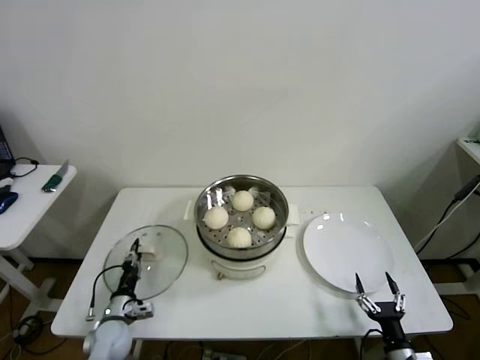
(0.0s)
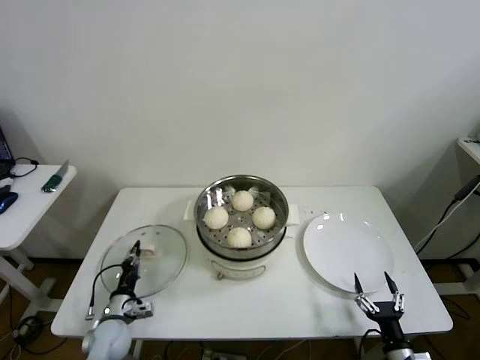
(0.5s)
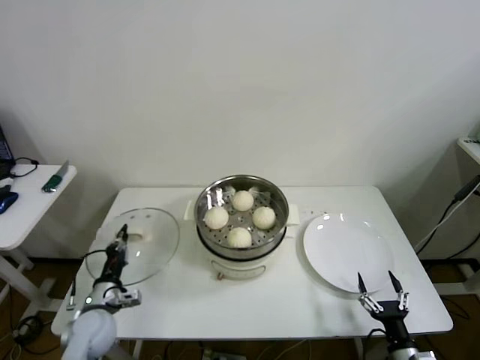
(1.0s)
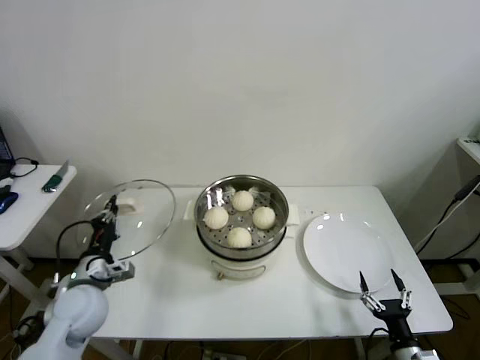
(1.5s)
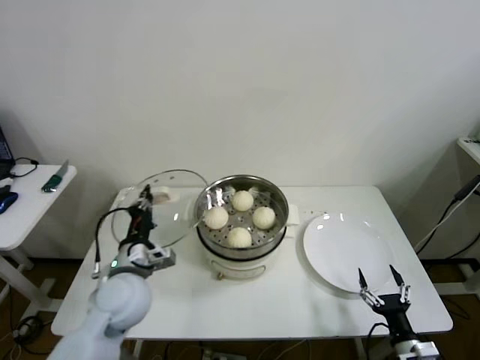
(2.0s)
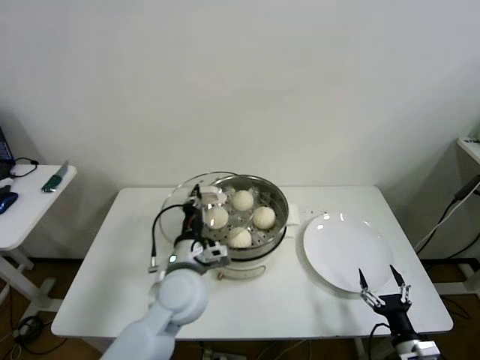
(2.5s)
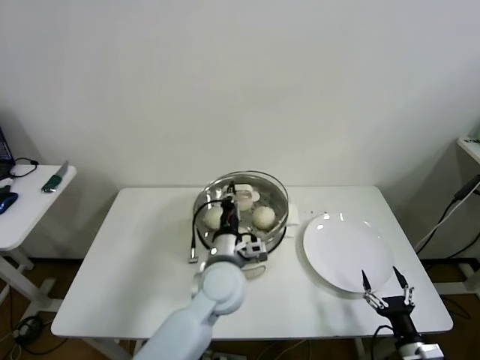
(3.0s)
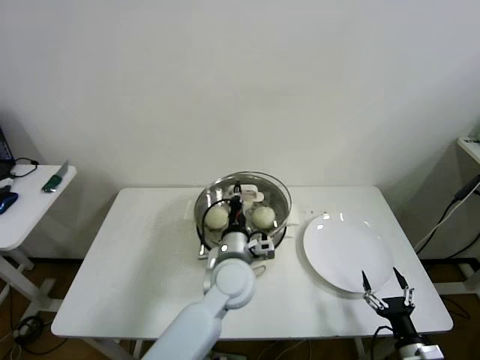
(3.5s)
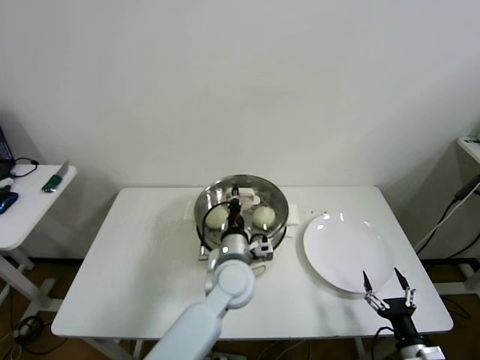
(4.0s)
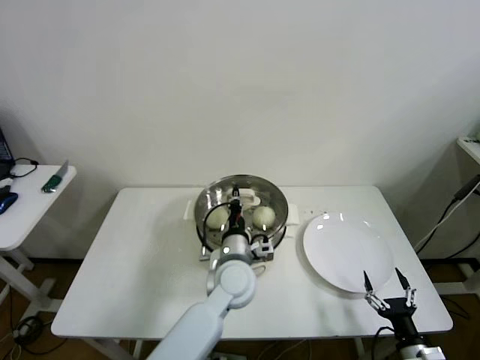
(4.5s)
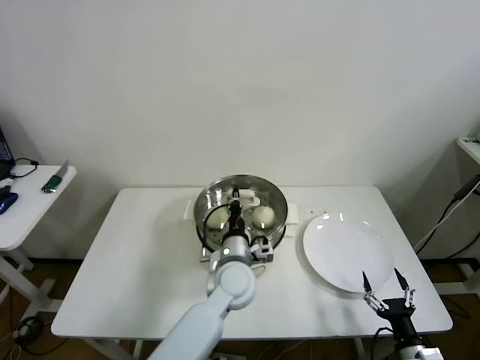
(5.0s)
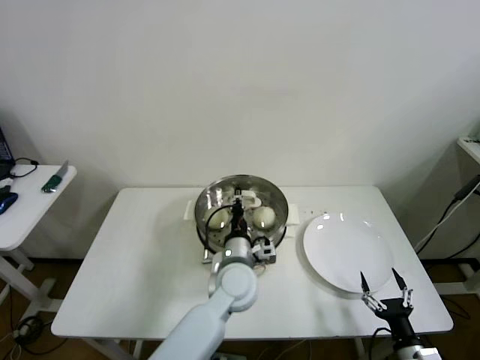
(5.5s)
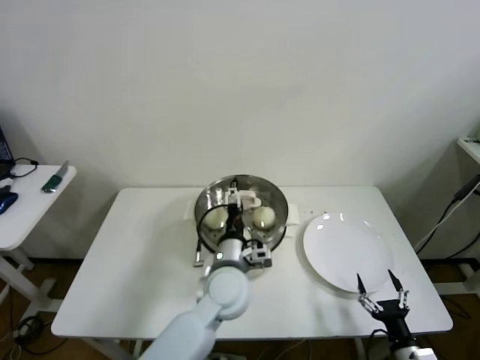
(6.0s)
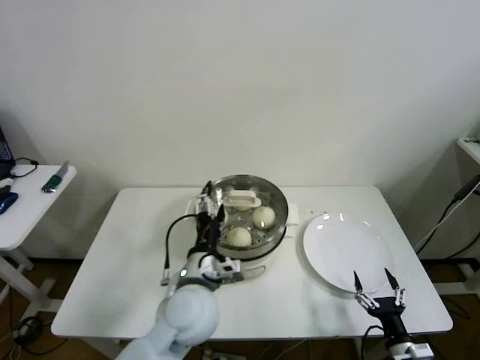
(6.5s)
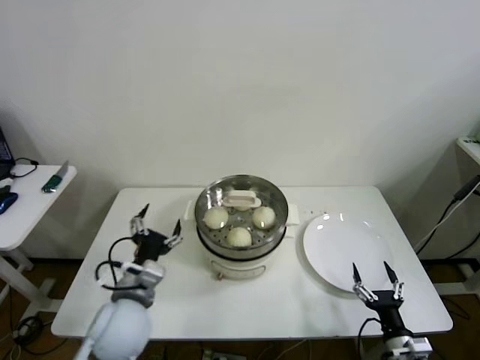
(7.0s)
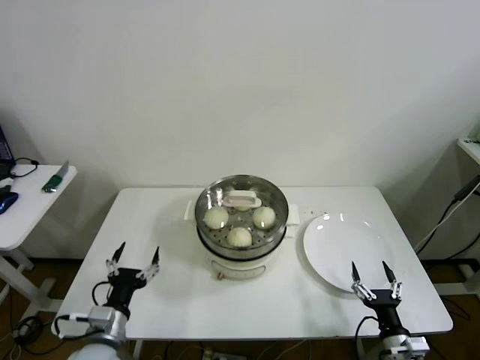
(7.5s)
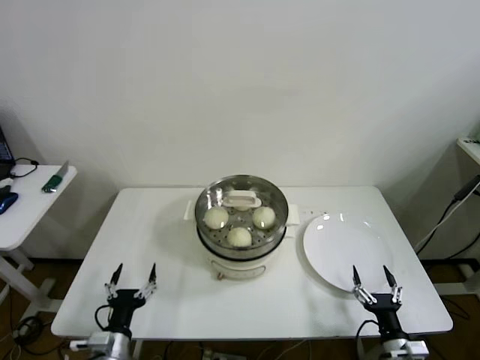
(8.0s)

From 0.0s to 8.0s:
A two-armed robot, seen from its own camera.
Step, from 0.5s to 5.0s: Place the pot lid on the steamer with left gripper.
From 0.0s to 2.0s: The left gripper heads upward and to the right, covering some 25 cm, and closes its fingers.
From 2.0s to 4.0s: The left gripper goes approximately 20 cm to the right.
From 4.0s to 6.0s: The left gripper opens up.
From 6.0s to 8.0s: The left gripper moves to the left, backward and downward, roughly 35 cm.

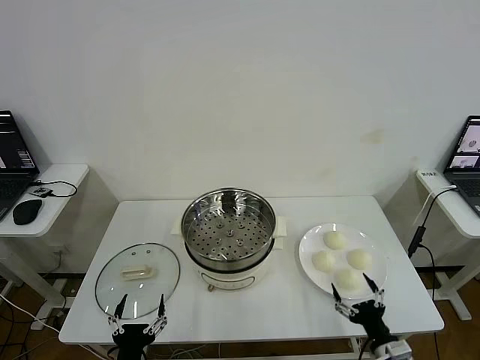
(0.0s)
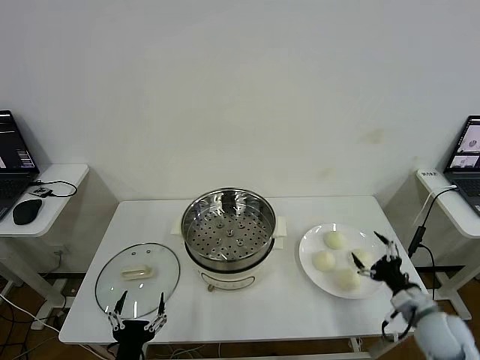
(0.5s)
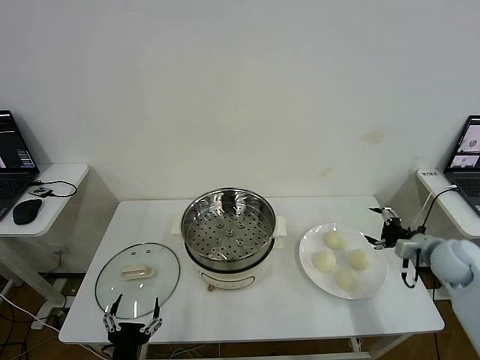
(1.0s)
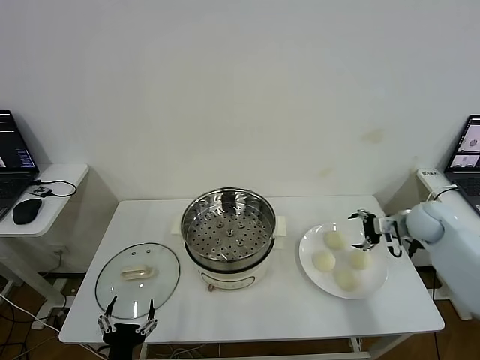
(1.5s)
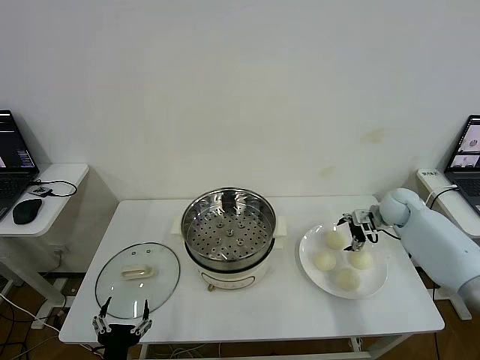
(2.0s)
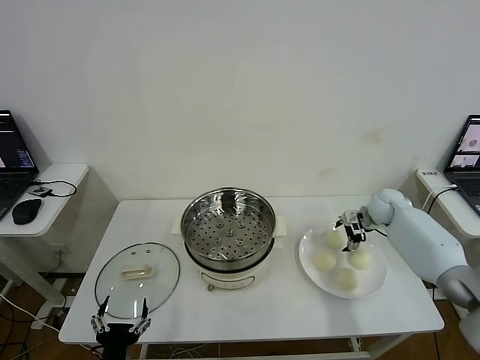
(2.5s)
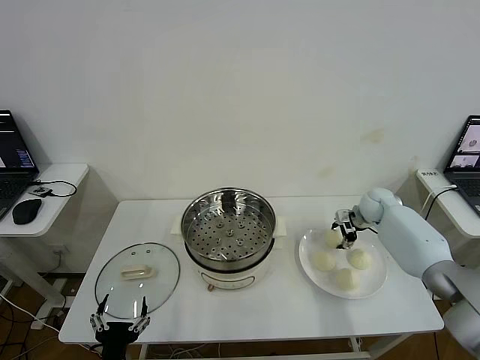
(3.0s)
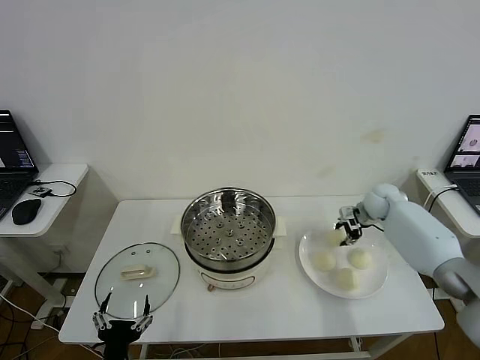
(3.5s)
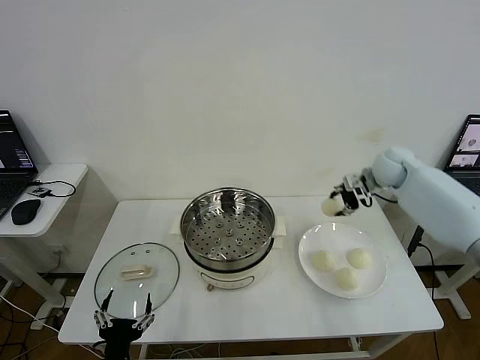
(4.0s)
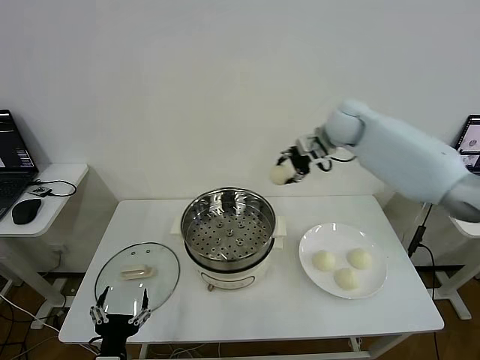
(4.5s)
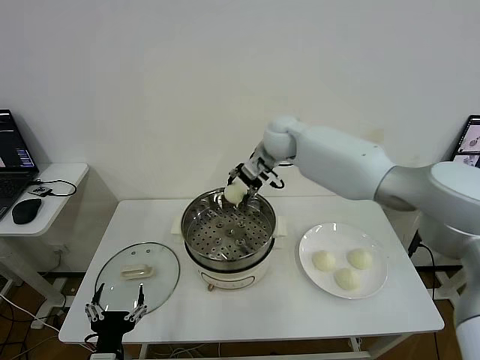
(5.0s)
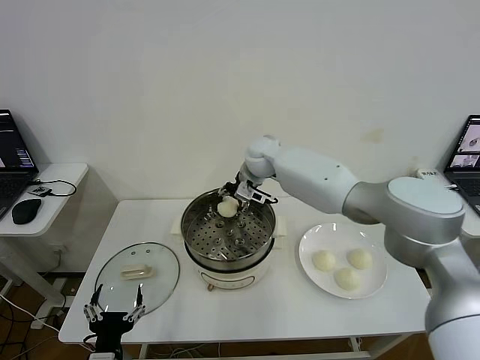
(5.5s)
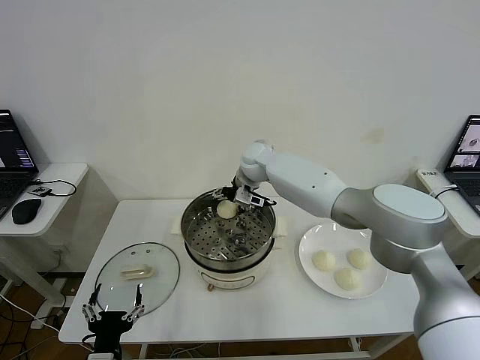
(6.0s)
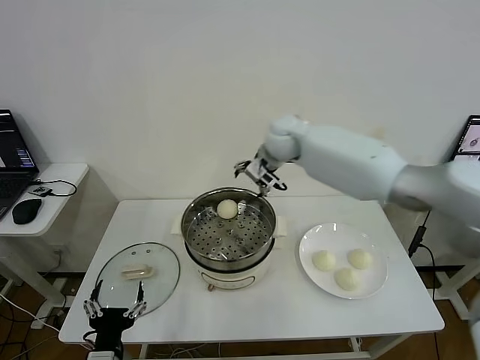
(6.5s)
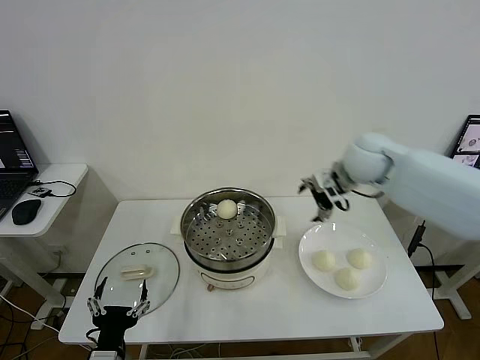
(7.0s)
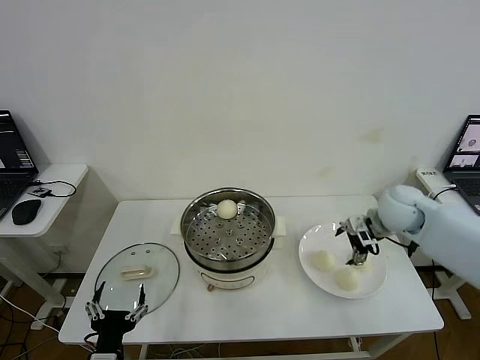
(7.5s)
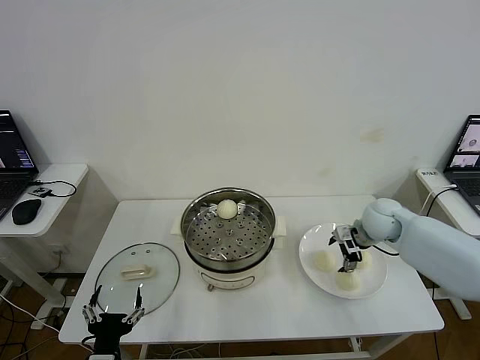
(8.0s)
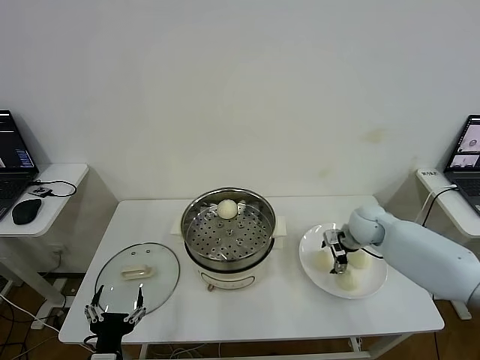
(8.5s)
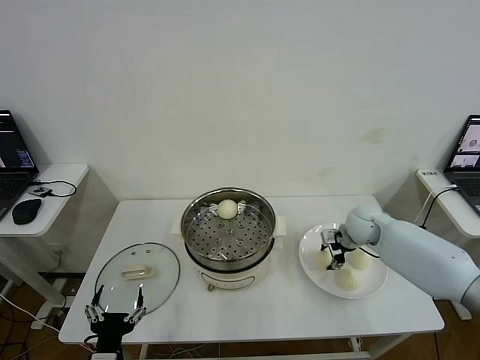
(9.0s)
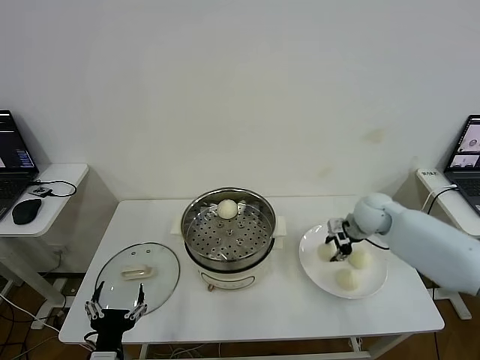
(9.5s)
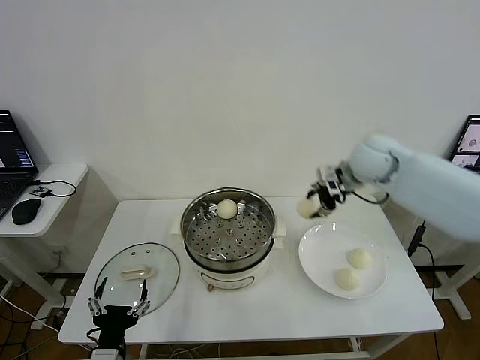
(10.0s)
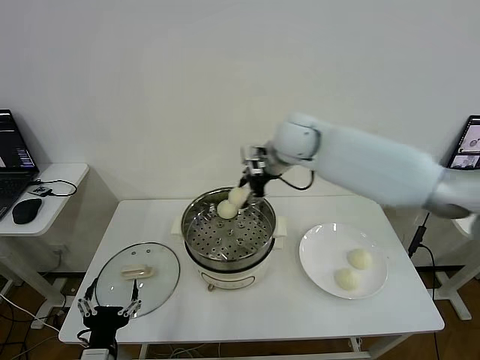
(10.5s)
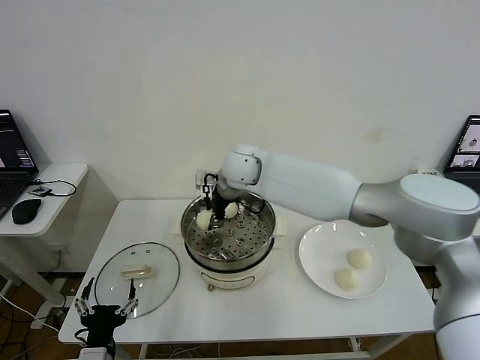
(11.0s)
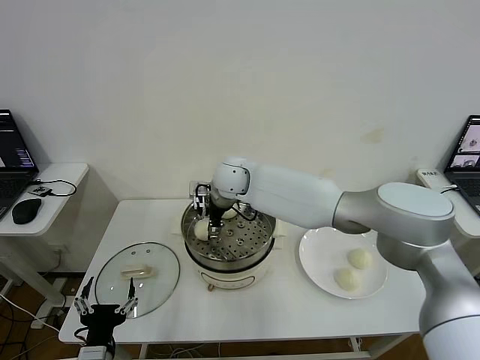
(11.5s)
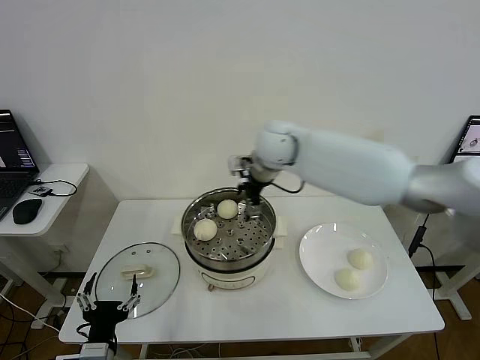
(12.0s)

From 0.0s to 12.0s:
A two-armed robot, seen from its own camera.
Step, from 0.0s to 3.0s: Grasp the baozi in the plate with right gripper.
Step, from 3.5s to 5.5s: Place the baozi on the steamer with right gripper.
Step, from 6.5s to 9.0s: Grasp the baozi in the plate with right gripper.
Step, from 9.5s to 11.0s: Place the baozi on the steamer with right gripper.
From 2.0s to 4.0s: The right gripper travels upward and to the left by about 15 cm, and closes.
From 4.0s to 6.0s: The right gripper goes roughly 30 cm to the left, and opens its fingers.
From 6.0s to 8.0s: The right gripper travels to the right and backward by about 30 cm.
From 8.0s to 10.0s: The right gripper shifts about 20 cm upward and to the left, and closes.
From 10.0s to 12.0s: The right gripper travels to the left by some 10 cm, and opens its fingers.

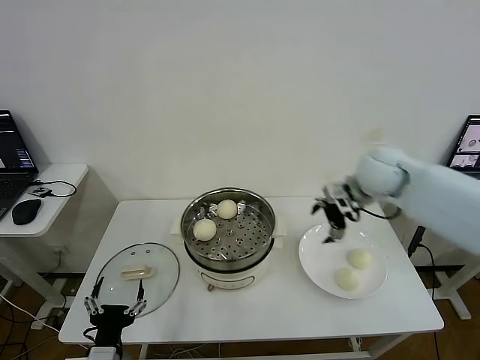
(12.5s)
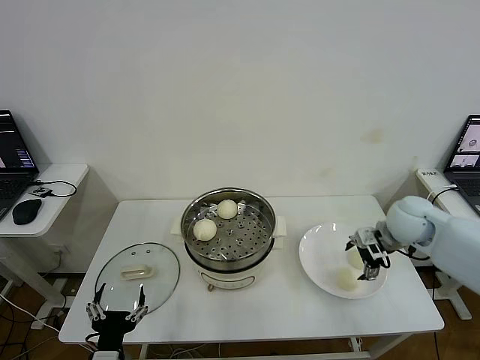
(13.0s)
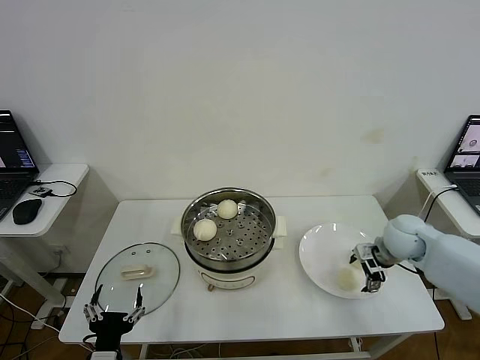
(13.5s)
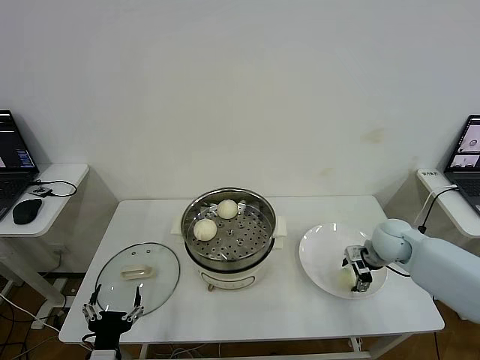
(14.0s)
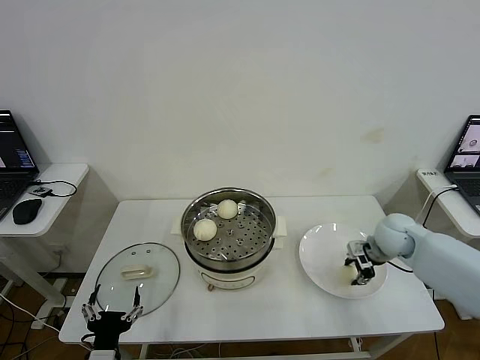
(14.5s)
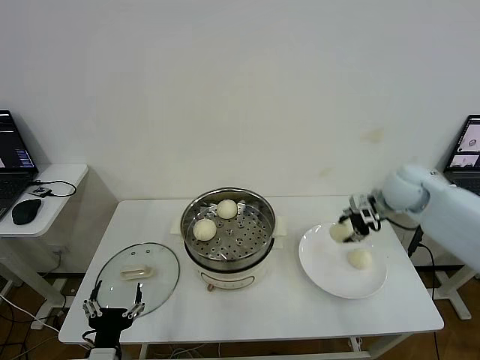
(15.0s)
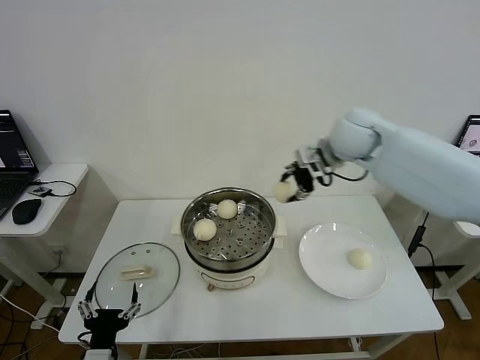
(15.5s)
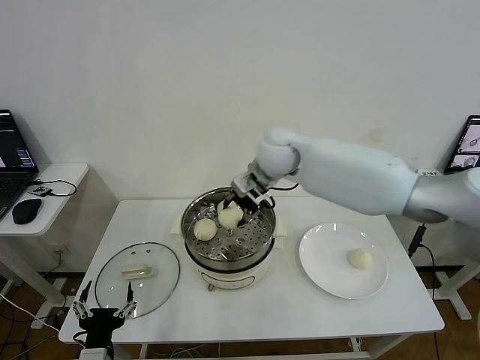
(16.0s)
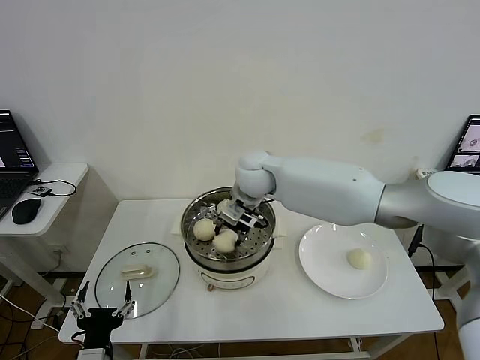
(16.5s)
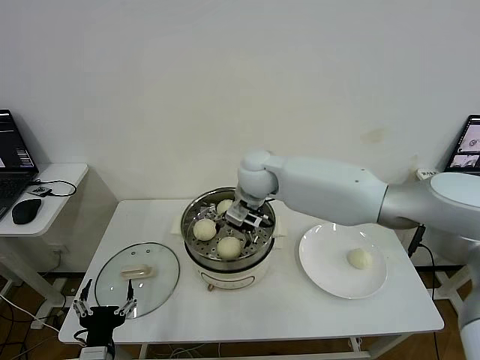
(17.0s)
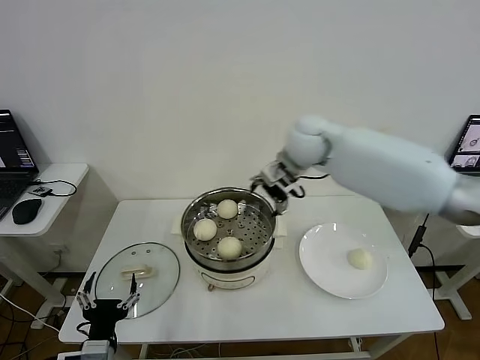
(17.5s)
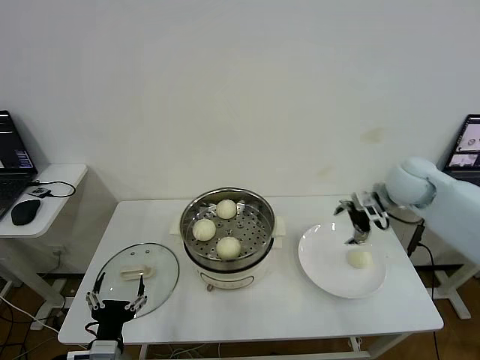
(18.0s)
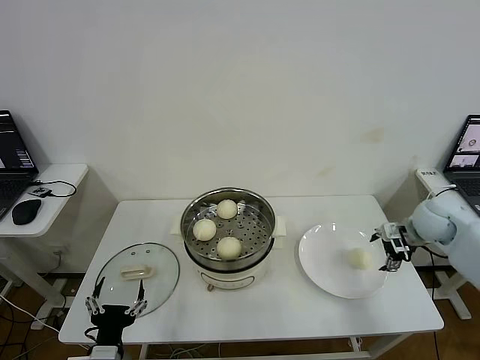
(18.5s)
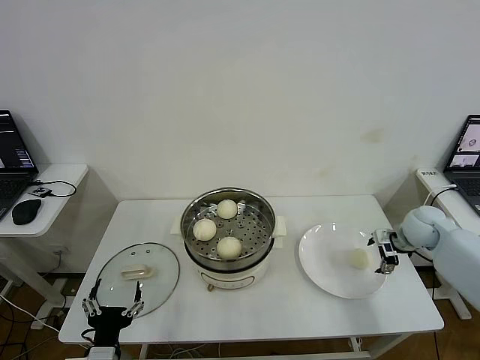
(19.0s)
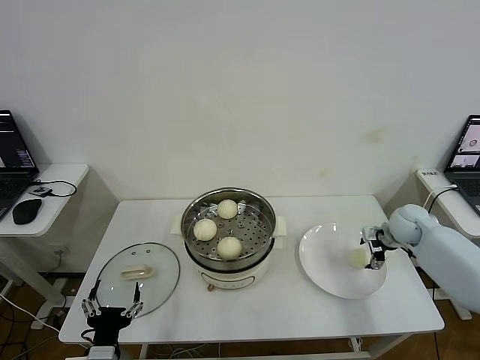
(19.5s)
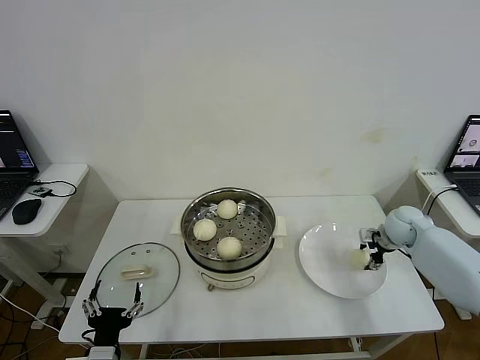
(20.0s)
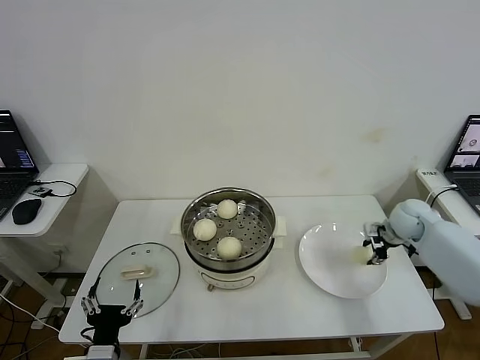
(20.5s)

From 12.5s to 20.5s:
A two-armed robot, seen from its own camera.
Step, from 12.5s to 14.0s: Grasp the baozi in the plate with right gripper.
Step, from 14.5s to 16.5s: Place the baozi on the steamer with right gripper.
Step, from 17.0s to 20.0s: Grasp the baozi in the plate with right gripper.
From 12.5s to 14.5s: The right gripper shifts roughly 15 cm downward and to the right, and closes its fingers.
From 14.5s to 16.5s: The right gripper is displaced to the left by approximately 35 cm.
From 16.5s to 18.5s: The right gripper moves to the right, some 40 cm, and opens up.
From 18.5s to 20.5s: The right gripper moves approximately 5 cm, and closes.
